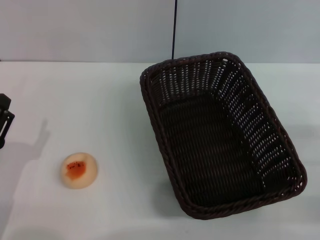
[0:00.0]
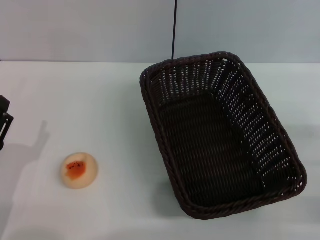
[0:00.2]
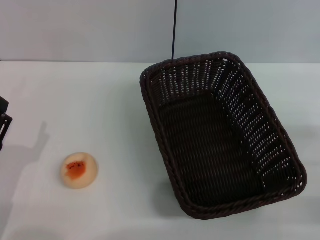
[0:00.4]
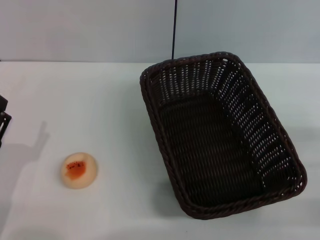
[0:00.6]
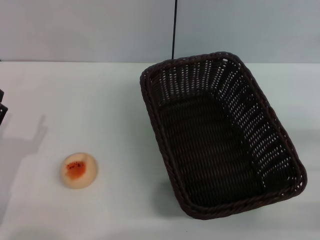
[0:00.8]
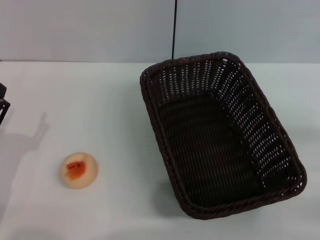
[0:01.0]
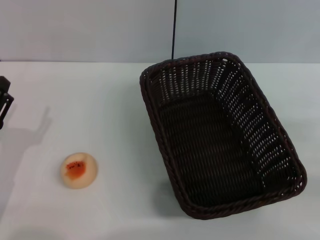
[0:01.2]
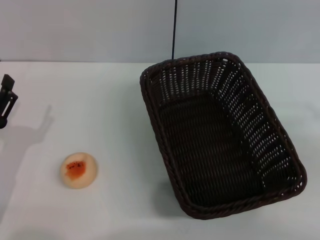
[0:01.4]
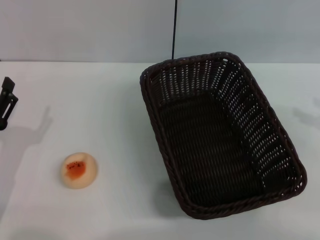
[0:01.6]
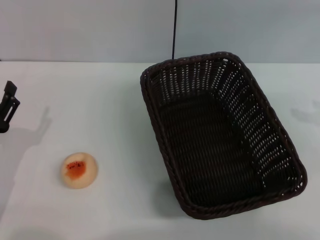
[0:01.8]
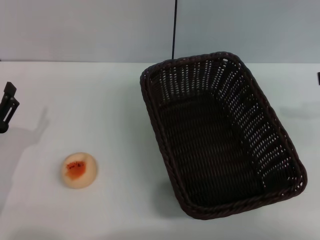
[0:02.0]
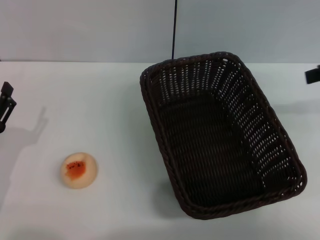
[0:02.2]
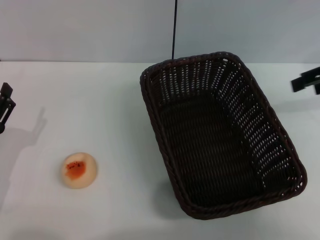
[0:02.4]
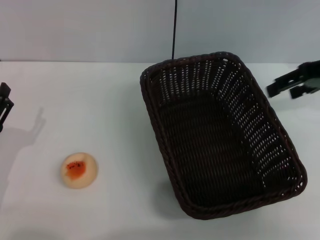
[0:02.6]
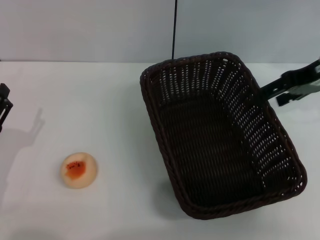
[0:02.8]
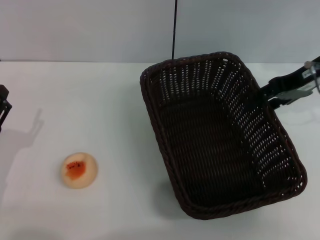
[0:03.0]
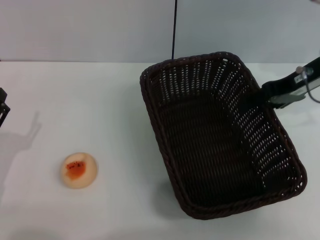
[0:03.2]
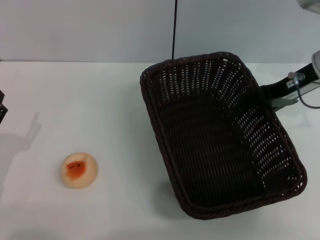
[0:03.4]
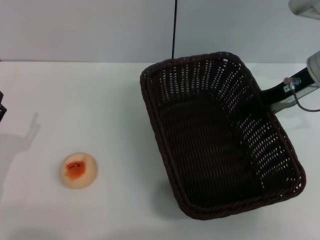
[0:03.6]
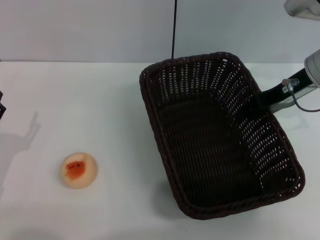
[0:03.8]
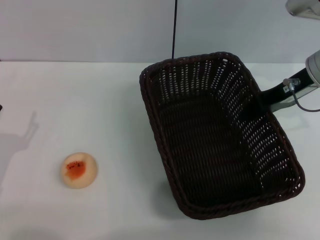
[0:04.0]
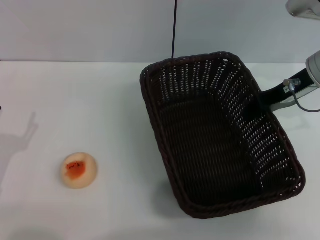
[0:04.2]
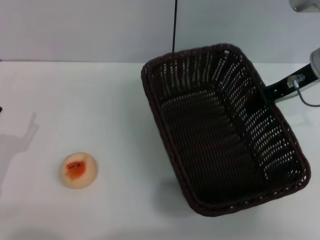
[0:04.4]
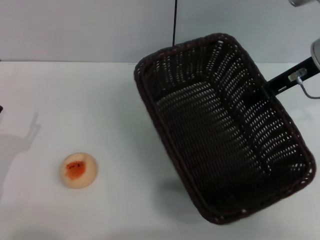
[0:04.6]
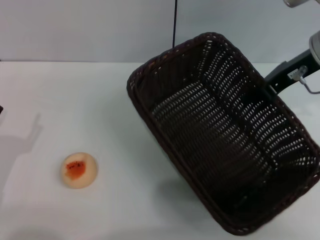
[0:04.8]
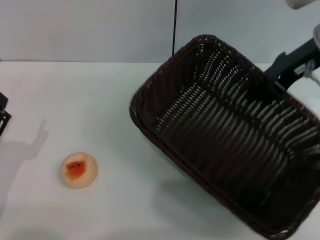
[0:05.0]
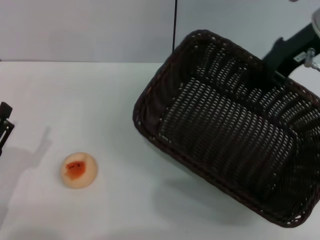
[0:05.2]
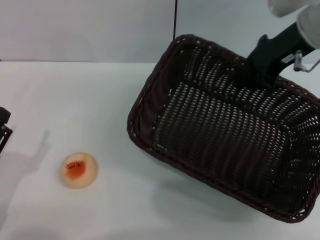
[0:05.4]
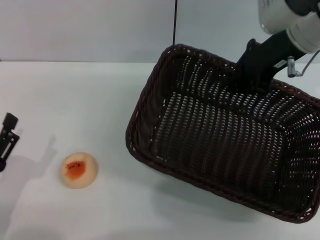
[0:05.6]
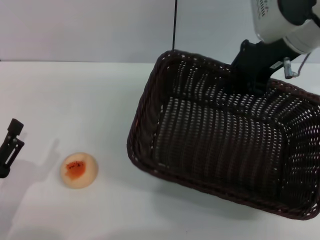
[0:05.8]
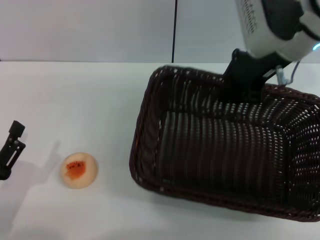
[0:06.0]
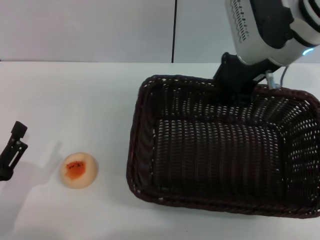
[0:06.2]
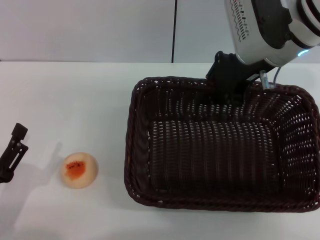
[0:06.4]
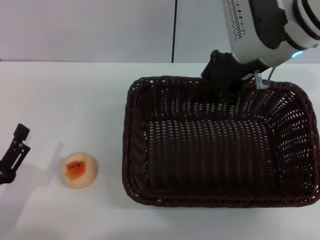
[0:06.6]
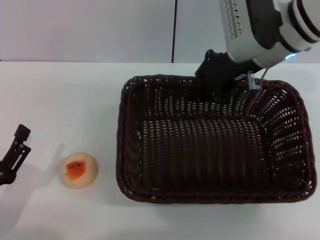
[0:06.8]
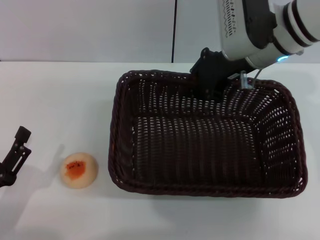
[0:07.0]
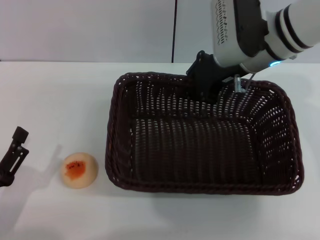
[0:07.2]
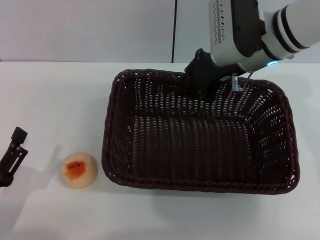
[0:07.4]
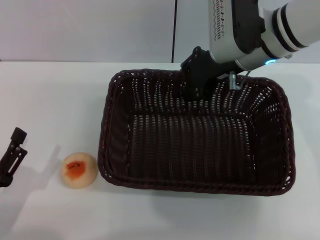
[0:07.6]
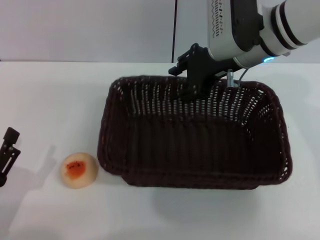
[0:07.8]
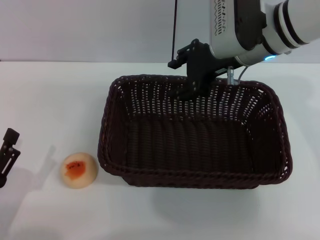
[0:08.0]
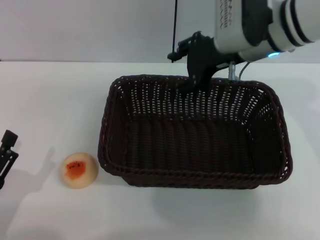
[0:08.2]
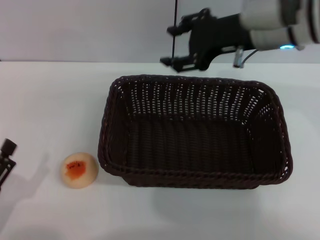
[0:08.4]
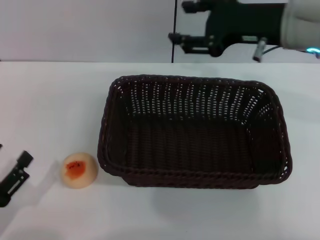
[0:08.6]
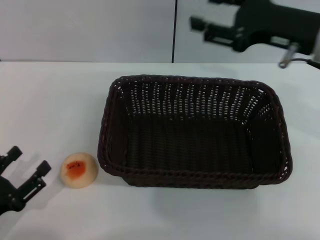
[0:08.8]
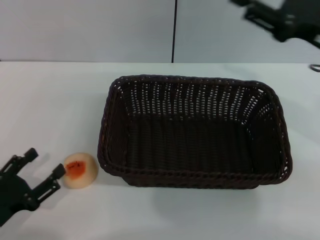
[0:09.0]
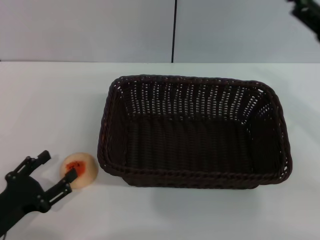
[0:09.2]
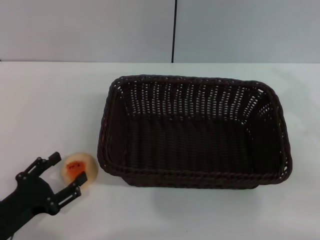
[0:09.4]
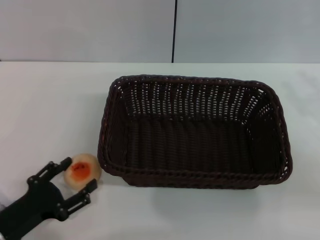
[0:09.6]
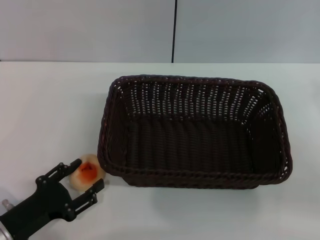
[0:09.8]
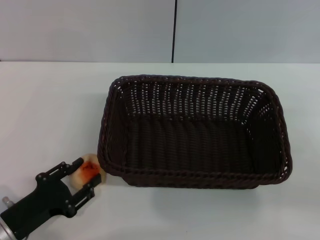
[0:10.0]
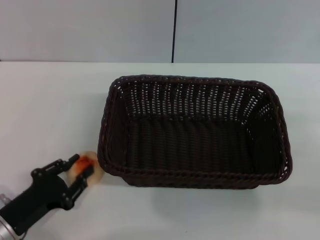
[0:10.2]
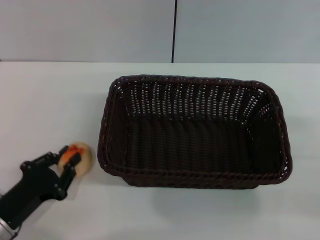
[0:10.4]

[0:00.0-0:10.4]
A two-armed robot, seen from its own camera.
Step, 0:00.0 to 0:08.0: Move the basket to the center of view with the right gripper.
0:01.4 to 0:03.0: The right gripper heads forward and to the left, covering about 20 cm.
0:03.0 to 0:04.4: The right gripper closes its fingers.
0:04.4 to 0:06.0: The left gripper moves backward, some 5 cm. The right gripper goes some 10 cm to the left.
0:07.4 to 0:09.0: The right gripper moves to the right and backward, approximately 15 cm, and opens up.
0:09.0 to 0:10.4: The right gripper heads to the right, downward and backward, covering some 15 cm. Meanwhile the left gripper closes.

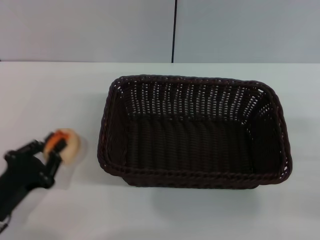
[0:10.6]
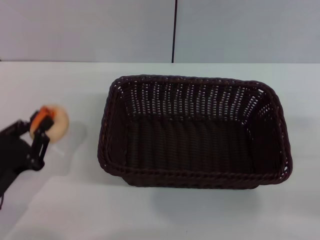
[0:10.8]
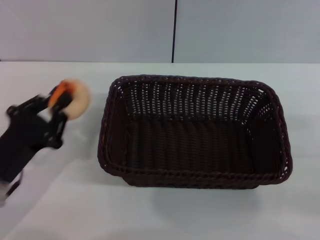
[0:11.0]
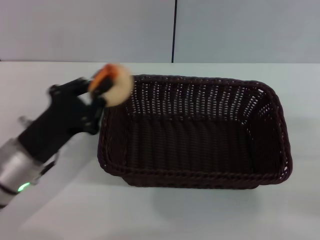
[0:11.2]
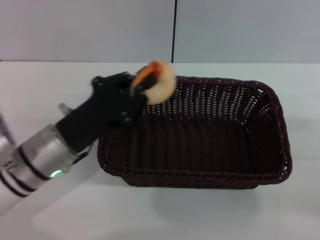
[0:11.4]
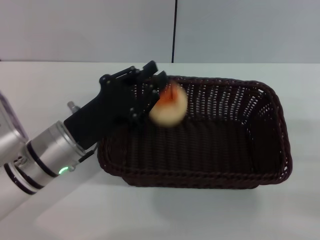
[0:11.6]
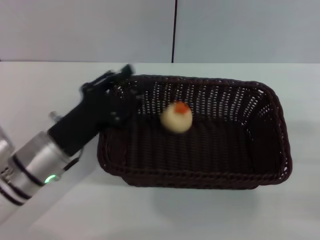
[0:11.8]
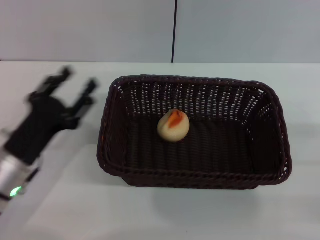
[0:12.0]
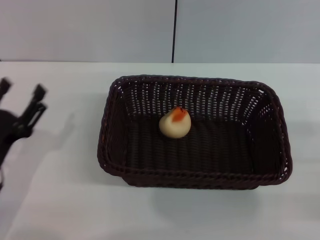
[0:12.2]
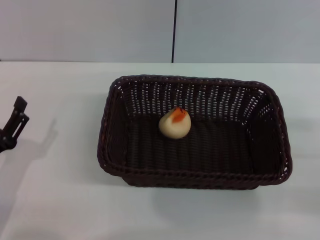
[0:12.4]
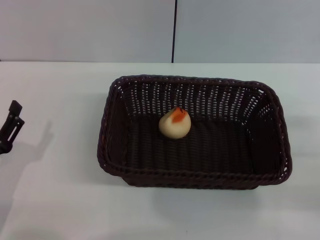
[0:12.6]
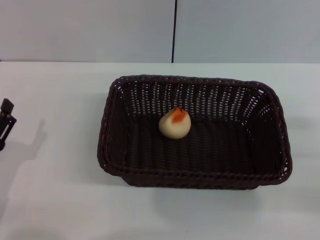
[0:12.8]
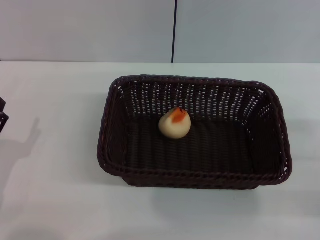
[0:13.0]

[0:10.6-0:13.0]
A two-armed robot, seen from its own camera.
Step, 0:11.0 to 0:11.8: Place the egg yolk pastry into the basket with the left gripper.
0:10.6 to 0:11.8: The left gripper goes approximately 10 cm forward and to the right.
0:11.8 to 0:13.0: The left gripper goes roughly 15 cm to the left and backward, and opens up.
